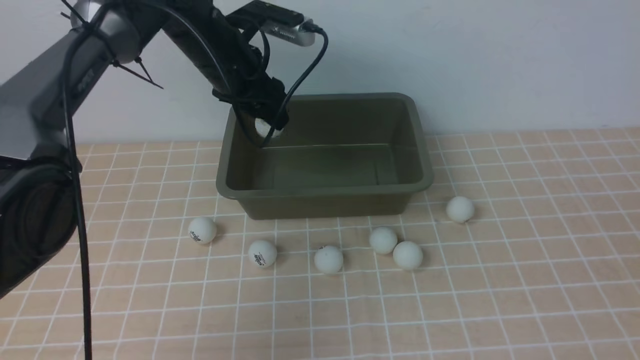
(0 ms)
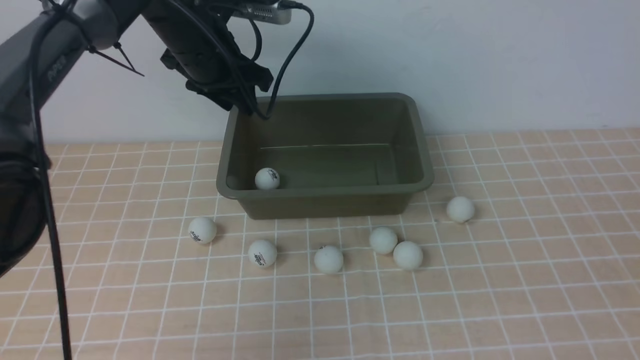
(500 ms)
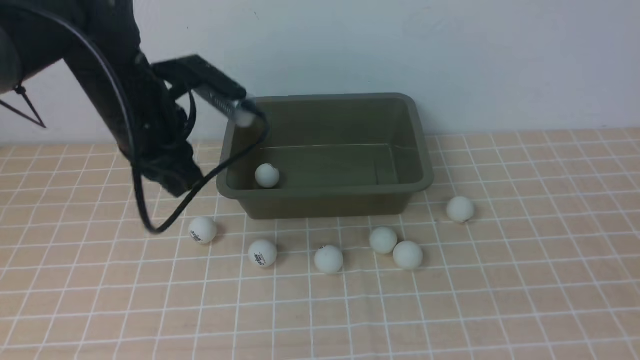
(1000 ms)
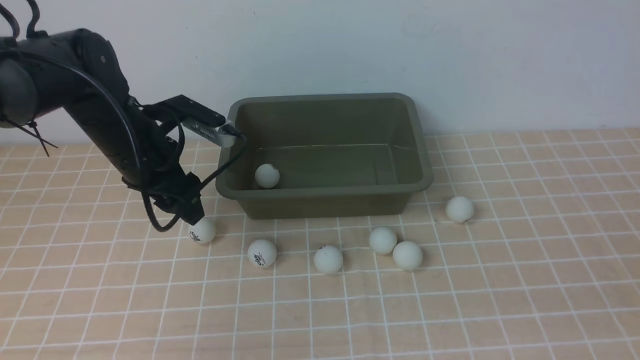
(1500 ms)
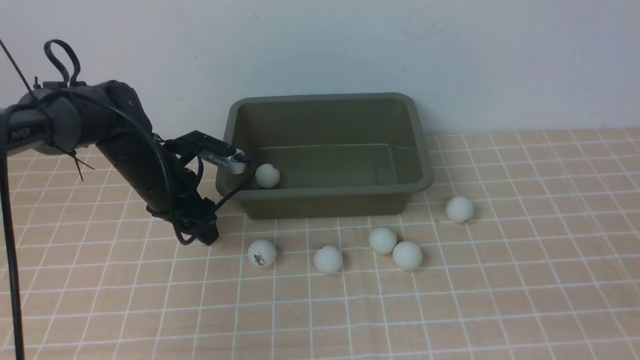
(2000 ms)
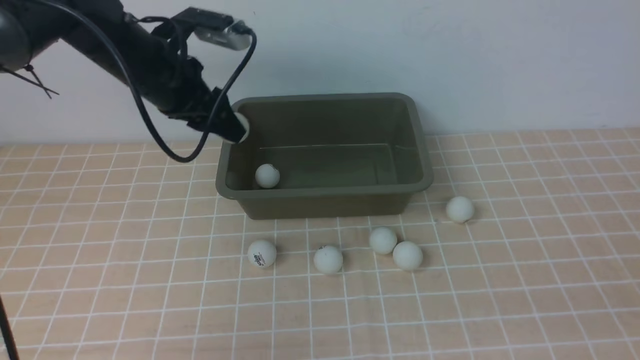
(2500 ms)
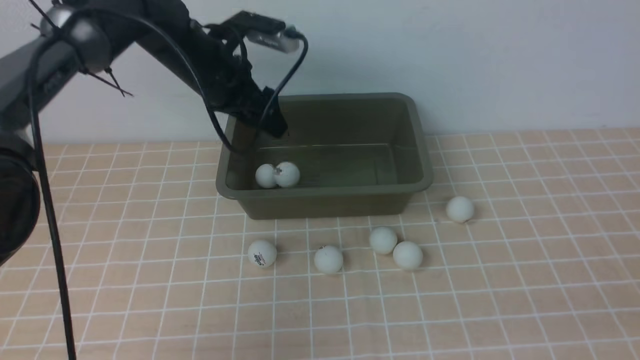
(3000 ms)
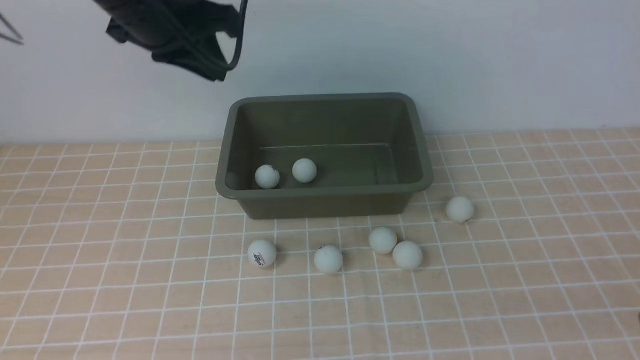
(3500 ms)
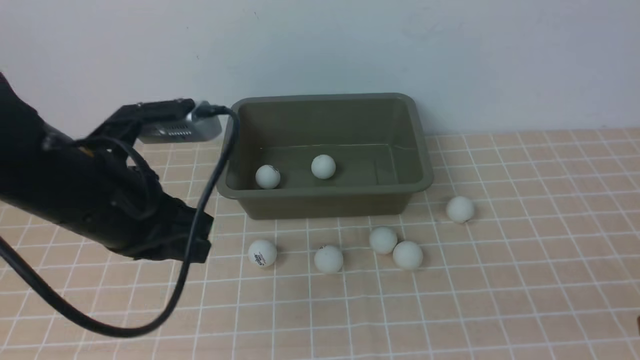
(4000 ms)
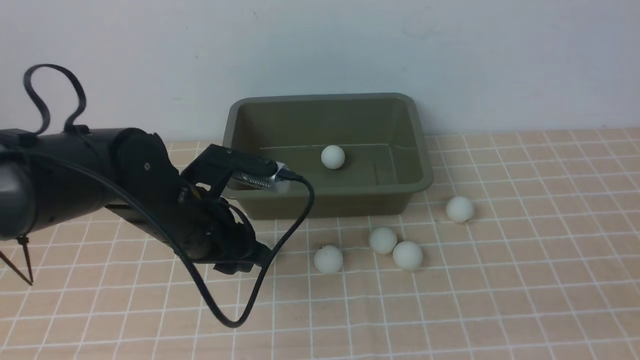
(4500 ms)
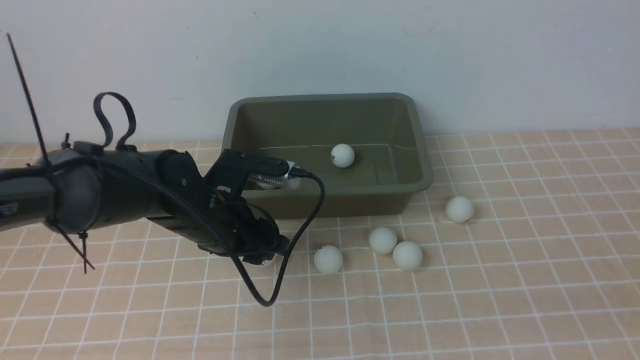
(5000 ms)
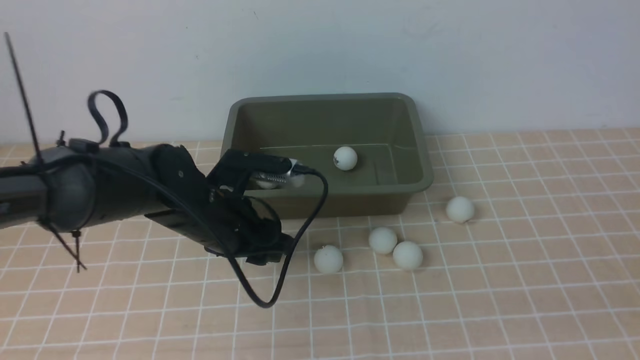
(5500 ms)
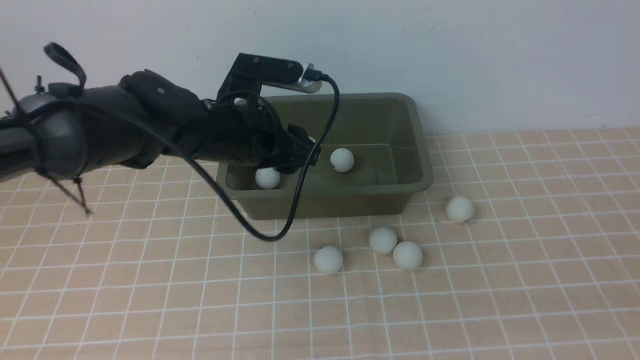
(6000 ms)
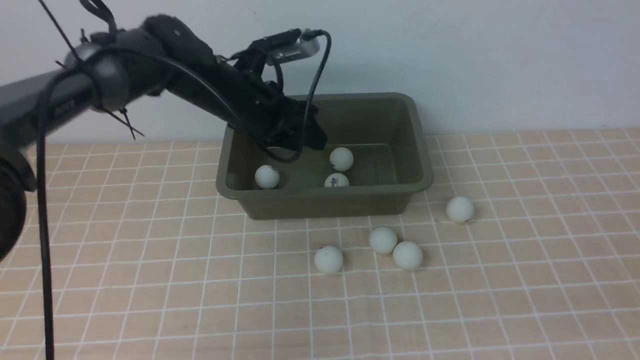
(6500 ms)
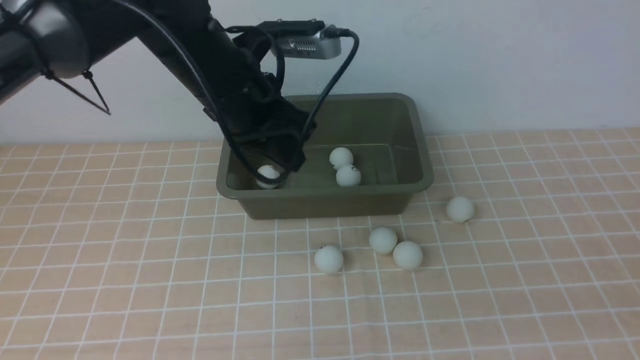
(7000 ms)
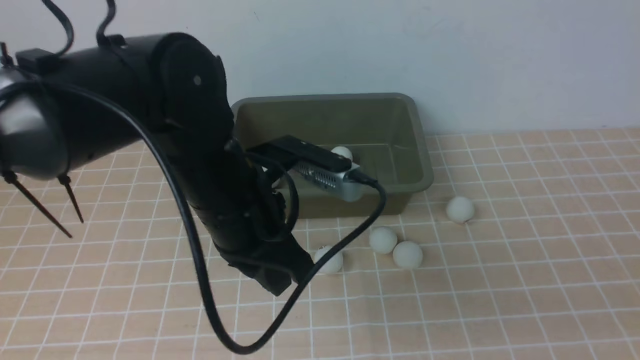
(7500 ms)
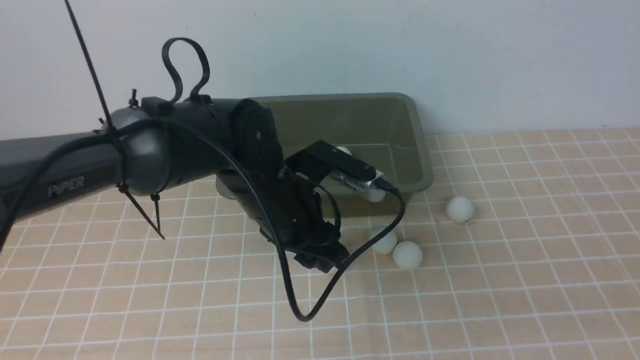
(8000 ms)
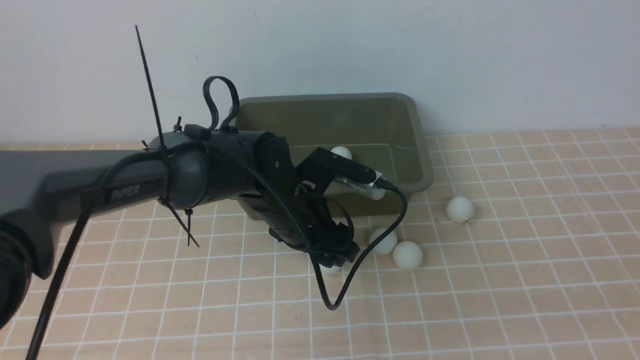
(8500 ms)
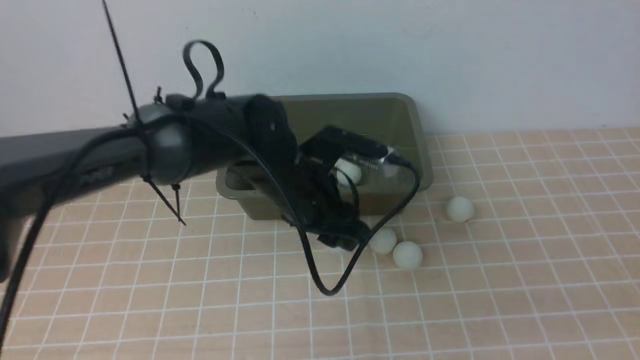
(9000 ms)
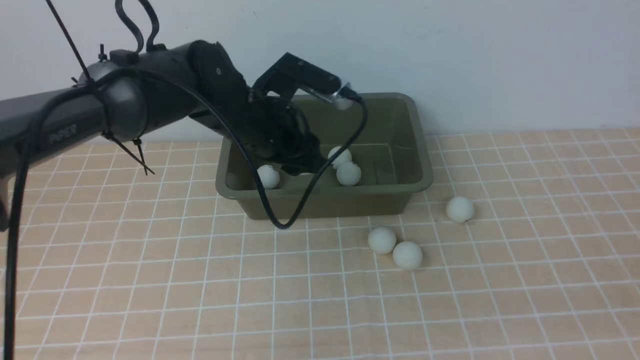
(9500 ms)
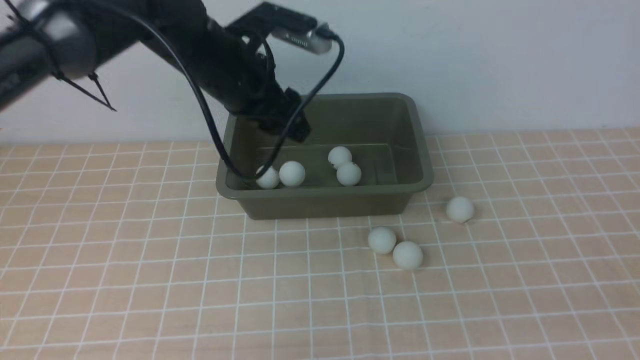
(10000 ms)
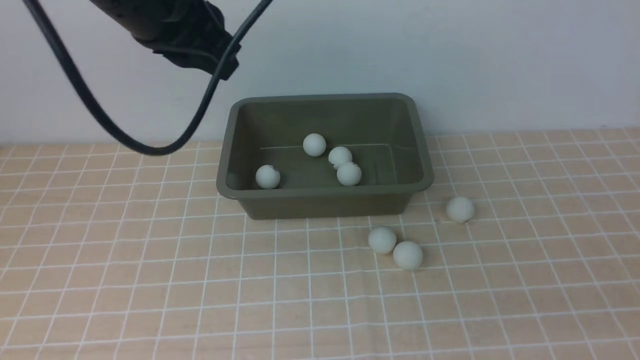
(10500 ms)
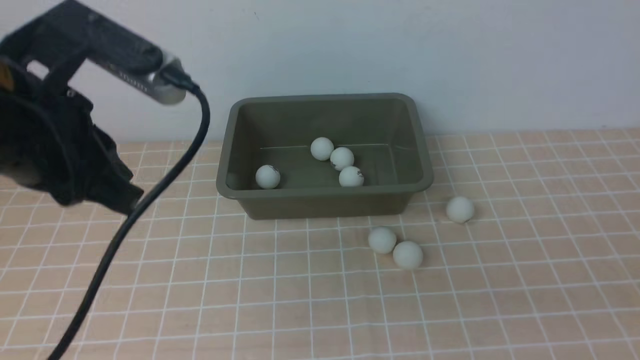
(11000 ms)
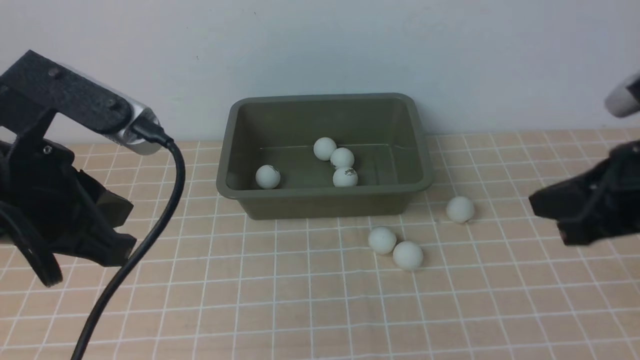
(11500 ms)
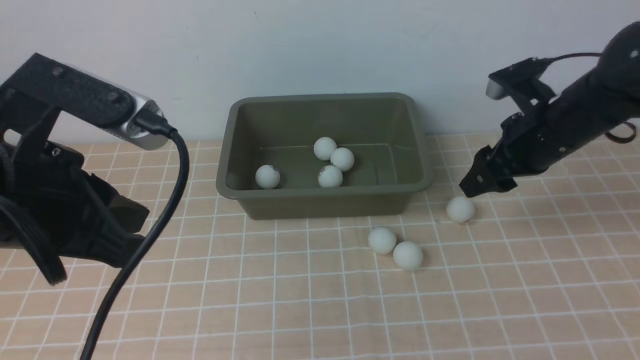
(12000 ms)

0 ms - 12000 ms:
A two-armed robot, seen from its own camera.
Step, 1000 ms - 2500 ms: use the left arm to clamp the table tennis ball closest to it.
Step, 3500 ms - 5500 ms: use the left arm to clamp the table tennis ball closest to it.
Step, 7000 ms - 9000 ms: use the left arm to clamp the table tennis ball closest to it.
Step, 9500 ms - 10000 ms: use the left arm to put the table tennis ball into the box.
0 ms - 2000 ms: The left gripper shifts approximately 15 cm downward, to the left and backward, and closes and opens again.
2000 ms - 4000 ms: The left gripper shifts approximately 20 cm backward and upward, and closes.
4000 ms - 6000 ms: The left gripper is displaced forward, to the right and downward by some 15 cm, and opens its fingers.
6000 ms - 8000 ms: The left gripper moves forward and backward over roughly 15 cm, changing direction 2 times, and closes, then reopens.
8000 ms - 10000 ms: The left gripper shifts some 15 cm upward, forward and to the left.
10000 ms - 12000 ms: The left gripper is displaced backward by some 20 cm, and closes its fingers; the right gripper shifts some 30 cm forward, and opens up.

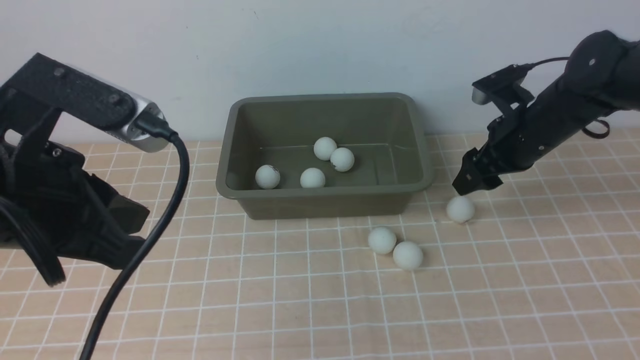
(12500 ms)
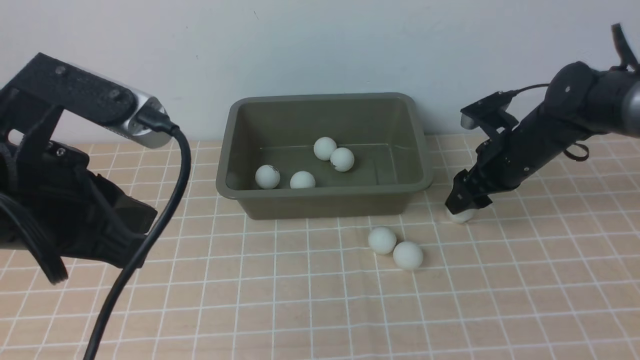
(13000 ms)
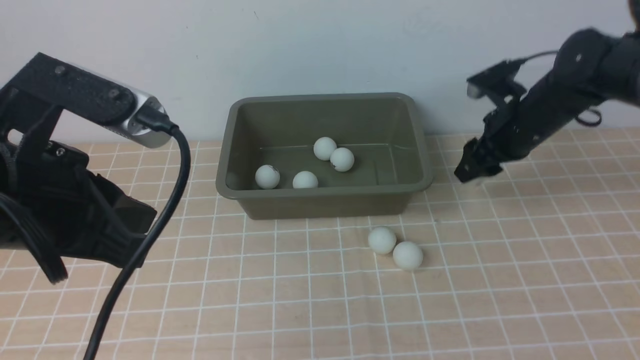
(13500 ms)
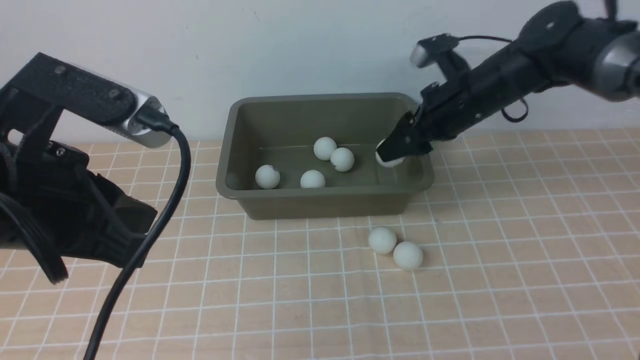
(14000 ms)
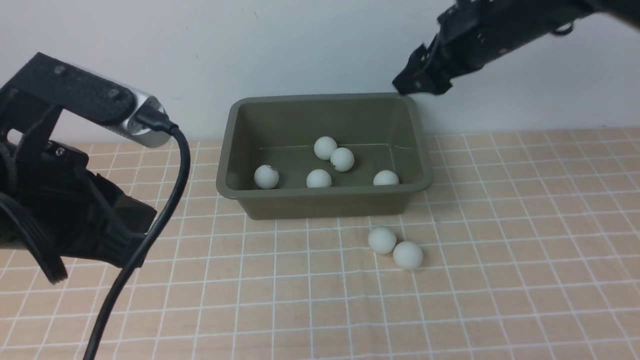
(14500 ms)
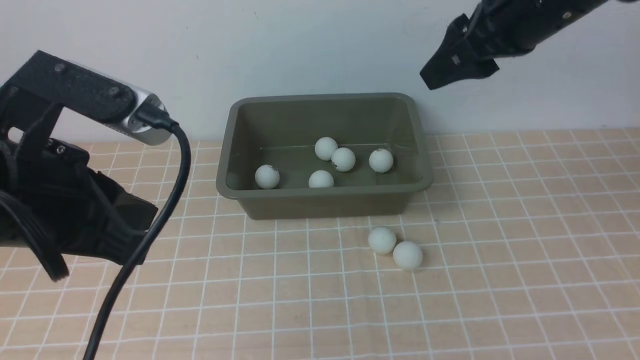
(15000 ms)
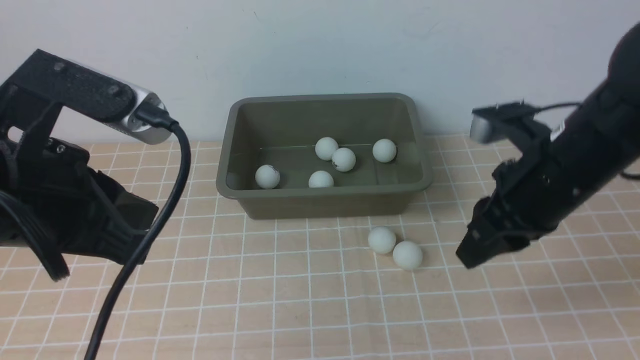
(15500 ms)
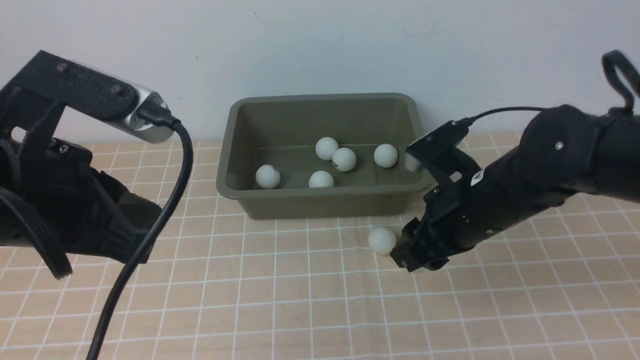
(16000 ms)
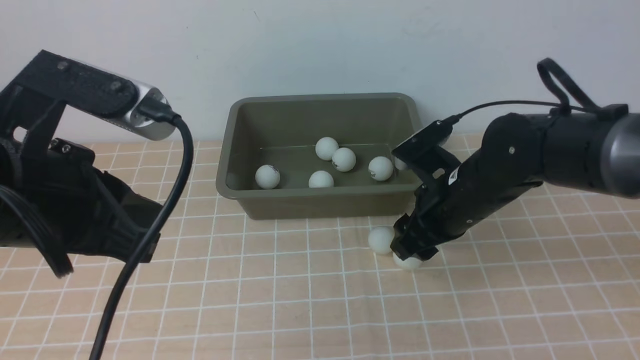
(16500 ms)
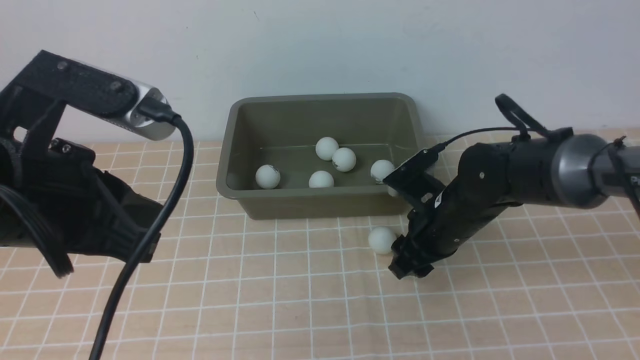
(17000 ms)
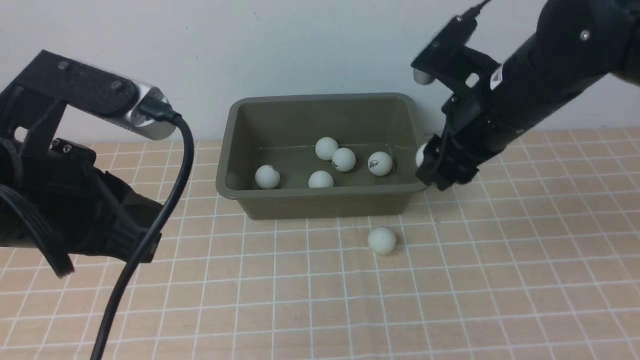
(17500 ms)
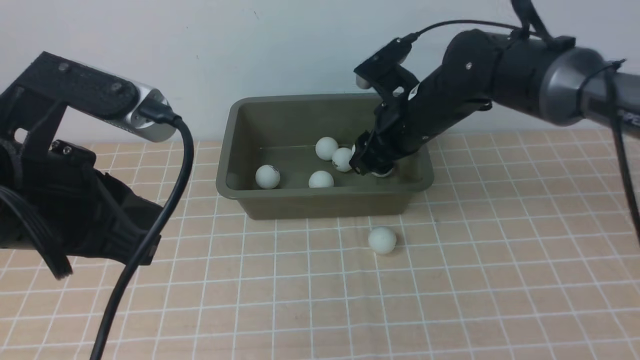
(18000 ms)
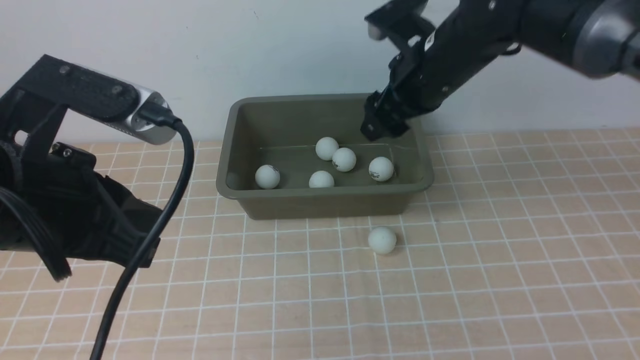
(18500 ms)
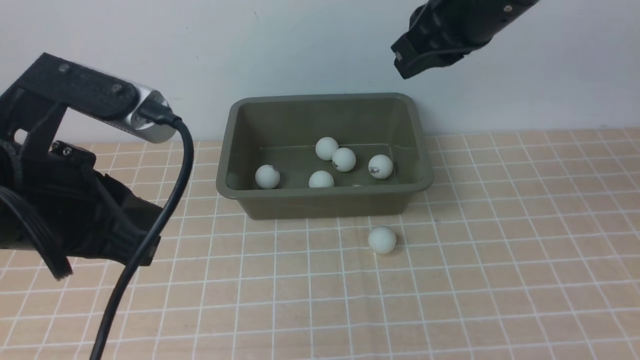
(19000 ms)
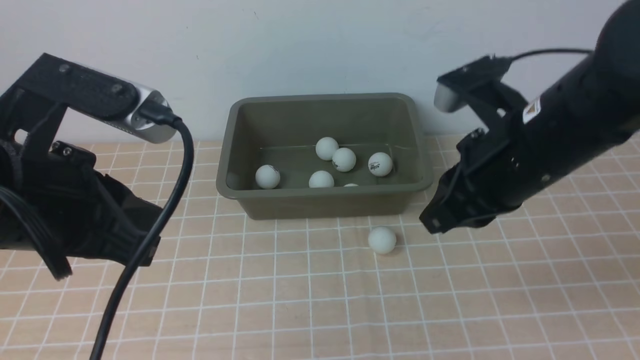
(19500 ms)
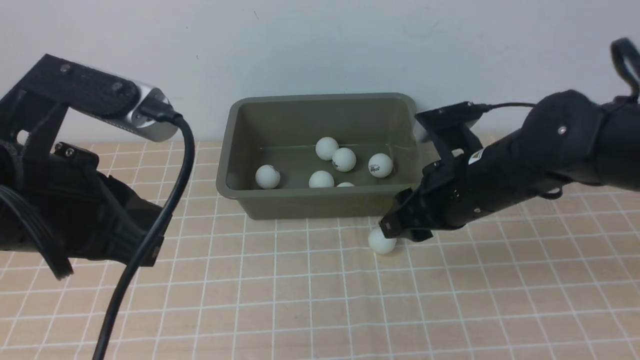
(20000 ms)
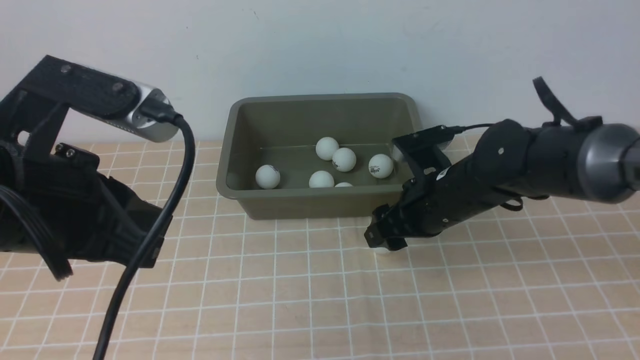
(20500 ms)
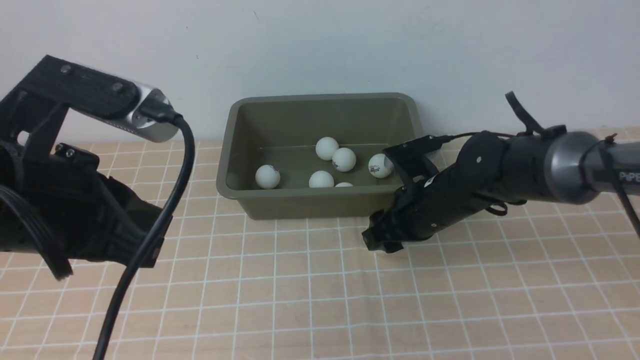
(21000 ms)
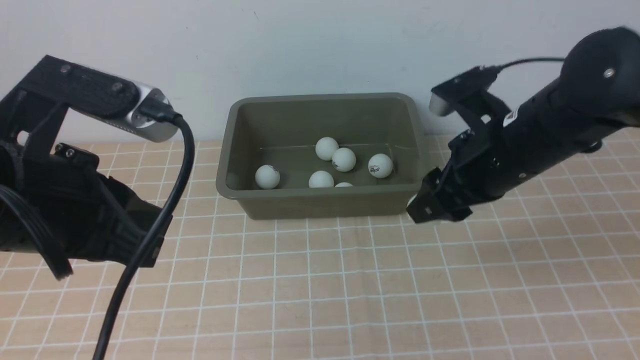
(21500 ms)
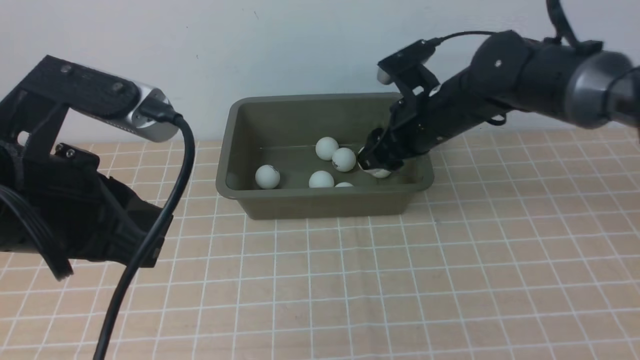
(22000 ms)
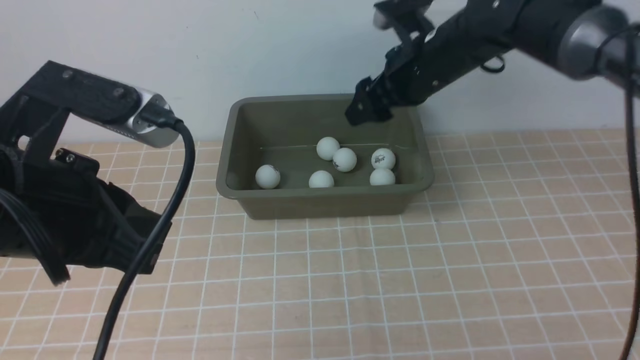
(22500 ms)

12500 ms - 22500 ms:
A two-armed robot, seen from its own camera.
Step, 14000 ms - 14500 ms: use the right arm to put the table tennis ball into the box.
Step, 15000 ms - 17500 ms: use the right arm to clamp the table tennis ball closest to it.
Step, 19000 ms - 21000 ms: use the right arm to clamp the table tennis ball closest to it.
Step, 21500 ms - 22000 ms: use the right arm to put the table tennis ball into the box.
12500 ms - 14500 ms: The right gripper is displaced upward and to the left by about 15 cm.
14500 ms - 16500 ms: The right gripper moves downward and backward, roughly 15 cm, and closes, then opens again.
16500 ms - 18500 ms: The right gripper swings up and down, about 15 cm each way, with 2 reversals.
18500 ms - 20500 ms: The right gripper shifts about 15 cm downward, and closes, then opens again.
20500 ms - 22500 ms: The right gripper shifts some 15 cm upward and forward.
